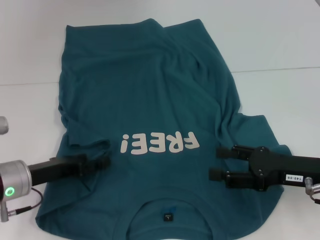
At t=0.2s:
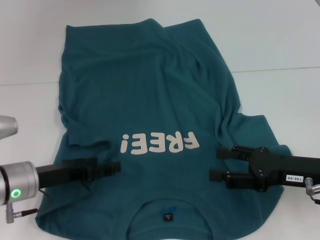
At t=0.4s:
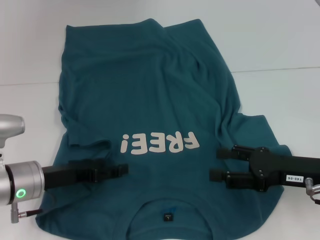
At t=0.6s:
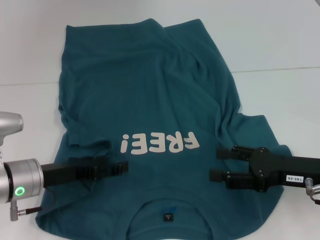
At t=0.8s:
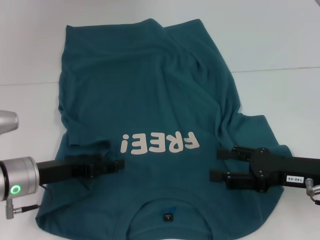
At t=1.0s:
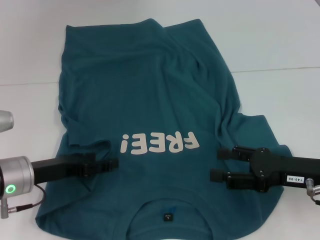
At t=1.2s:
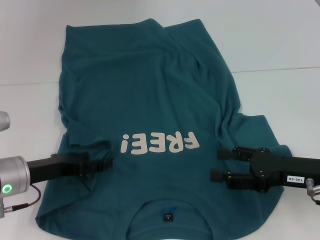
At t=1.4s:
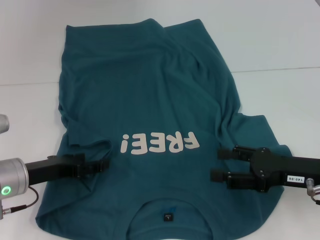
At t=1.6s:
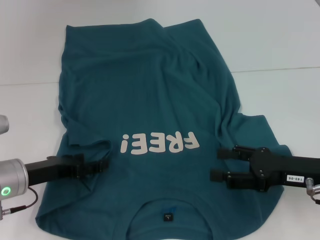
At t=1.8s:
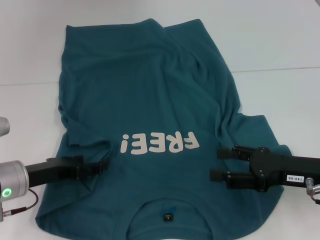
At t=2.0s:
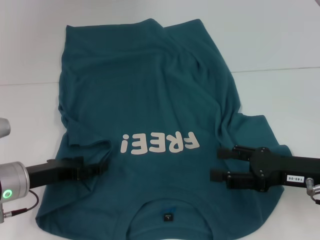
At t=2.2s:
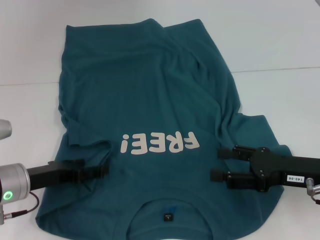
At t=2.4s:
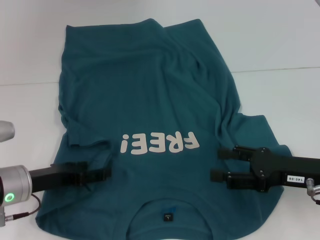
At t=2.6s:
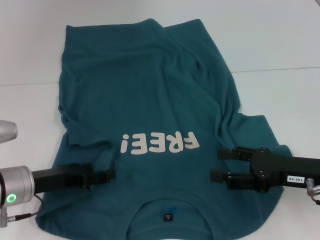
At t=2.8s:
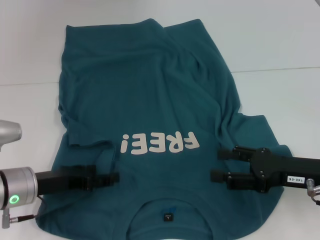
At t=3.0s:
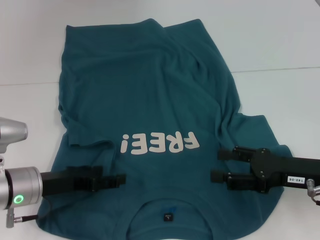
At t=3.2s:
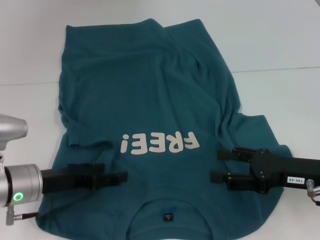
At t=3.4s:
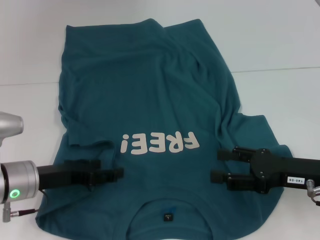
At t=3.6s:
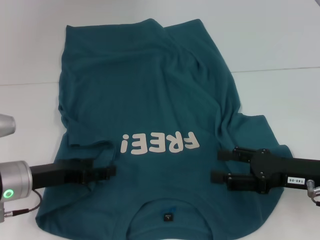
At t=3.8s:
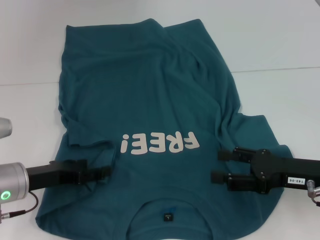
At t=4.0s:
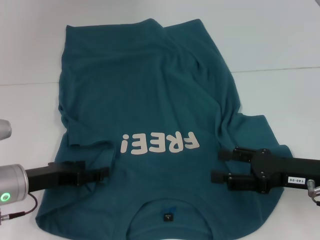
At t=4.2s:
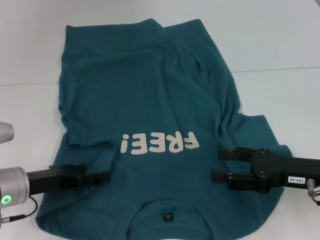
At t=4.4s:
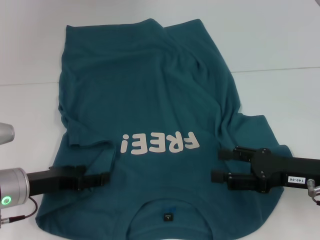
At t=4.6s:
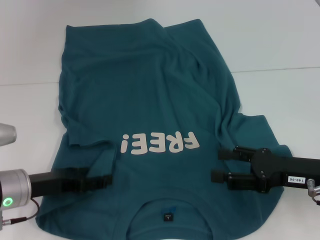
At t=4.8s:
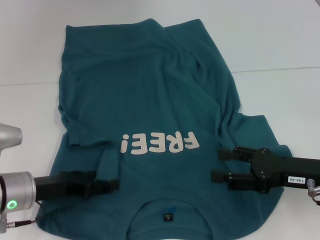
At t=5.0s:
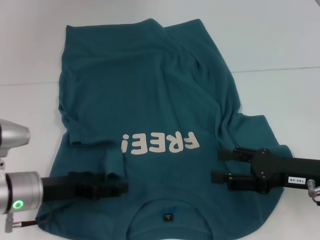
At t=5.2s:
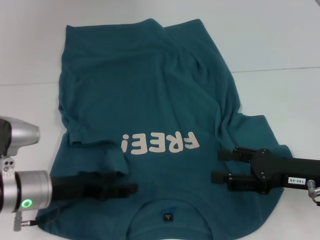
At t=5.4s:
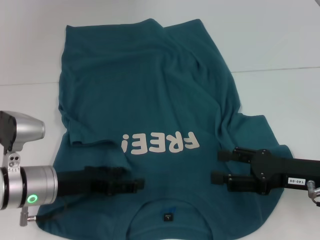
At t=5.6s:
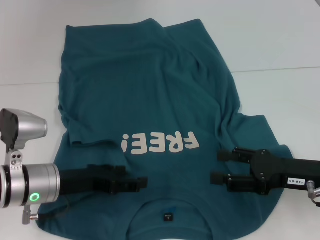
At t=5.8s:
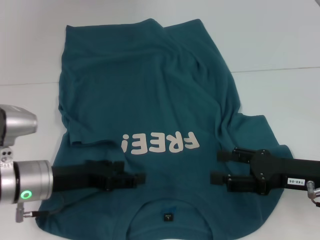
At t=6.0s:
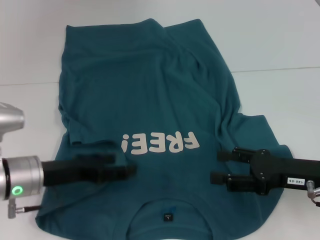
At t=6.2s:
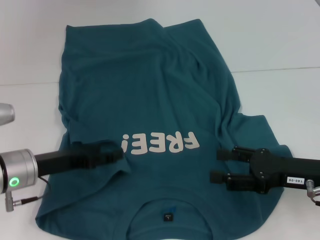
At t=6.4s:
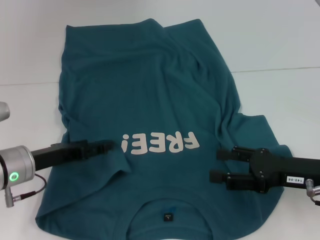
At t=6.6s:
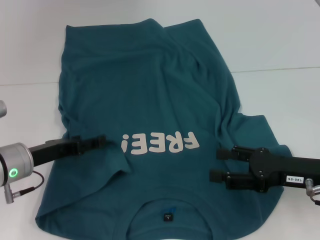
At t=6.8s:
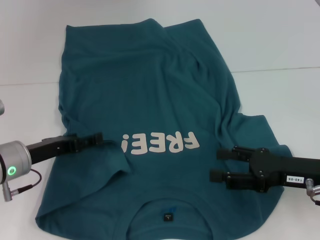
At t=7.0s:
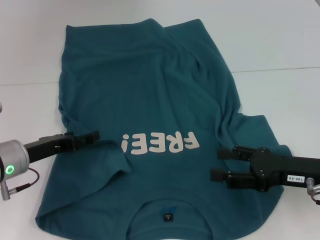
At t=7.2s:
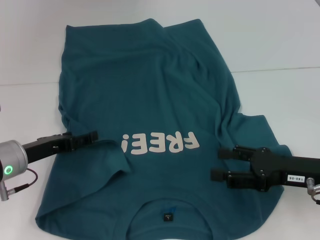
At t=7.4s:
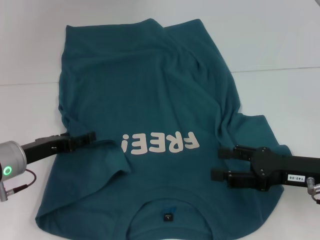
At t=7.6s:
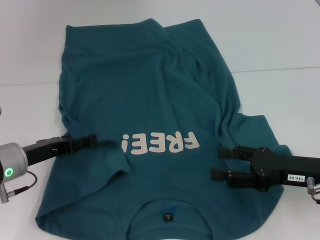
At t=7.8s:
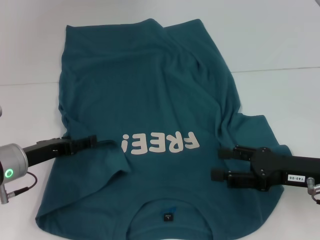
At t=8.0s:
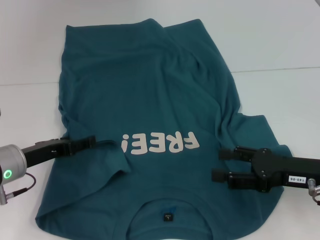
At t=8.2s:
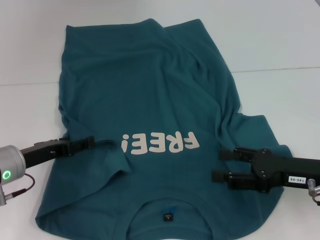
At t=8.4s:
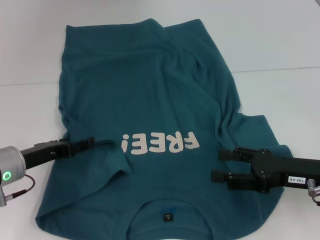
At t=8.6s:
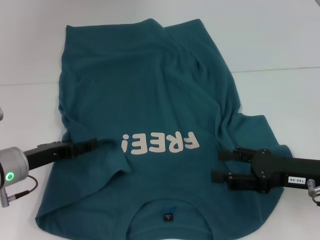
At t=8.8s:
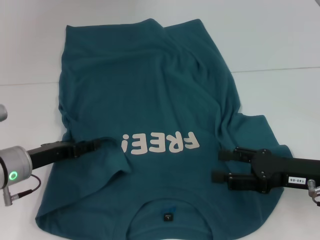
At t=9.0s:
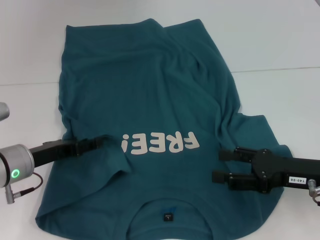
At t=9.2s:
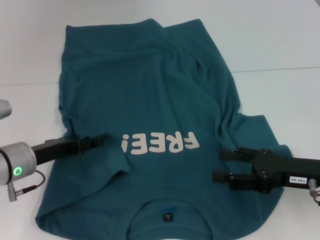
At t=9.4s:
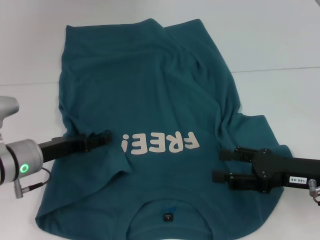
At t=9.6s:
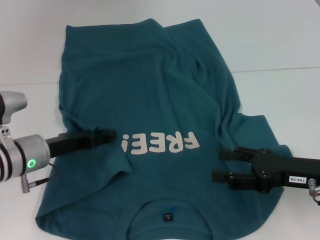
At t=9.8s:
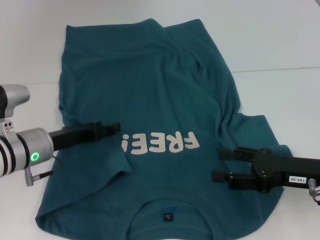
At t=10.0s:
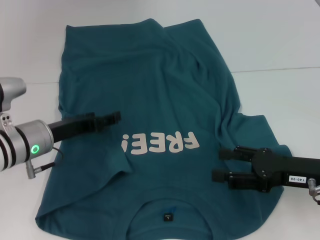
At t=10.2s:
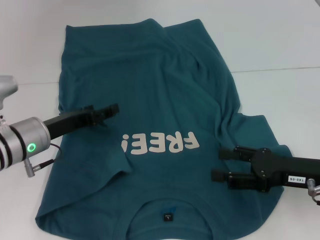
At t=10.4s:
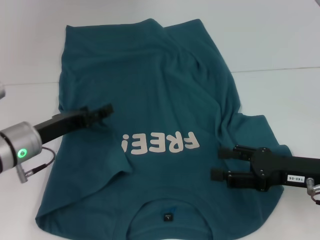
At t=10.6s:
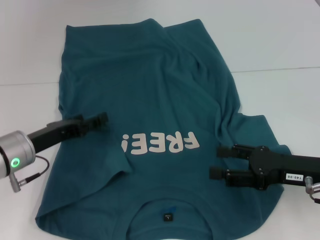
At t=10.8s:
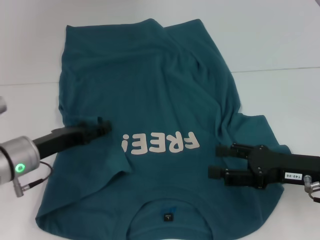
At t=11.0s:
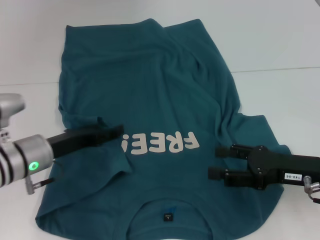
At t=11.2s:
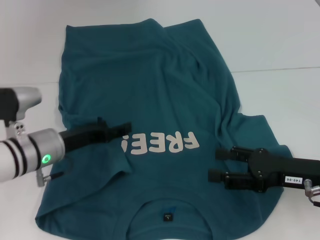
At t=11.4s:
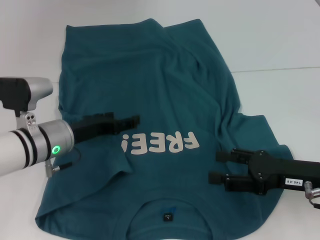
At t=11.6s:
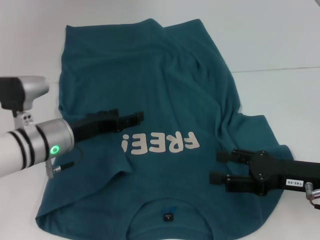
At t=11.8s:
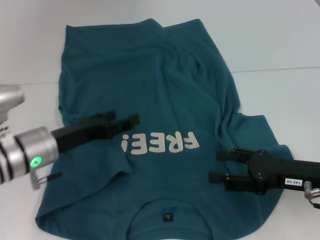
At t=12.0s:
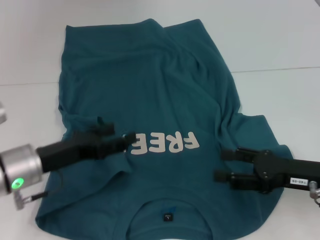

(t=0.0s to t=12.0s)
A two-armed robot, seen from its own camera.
Step, t=0.0s - t=12.0s: Fold the bottom left sleeve with your left hand.
t=0.0s - t=6.0s: The grippers move only a little.
t=7.6s - t=9.0s: Both grippers stay put.
t=9.0s - t=10.4s: The grippers make only small movements.
t=10.4s - t=12.0s: The grippers move only a little.

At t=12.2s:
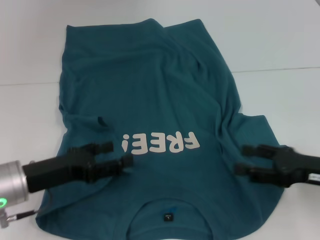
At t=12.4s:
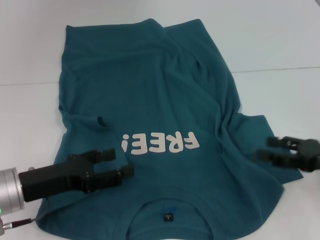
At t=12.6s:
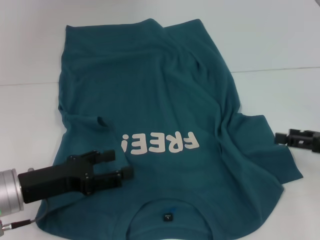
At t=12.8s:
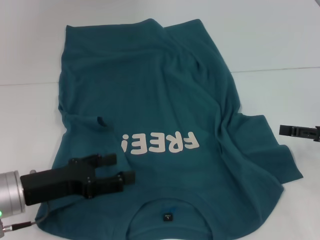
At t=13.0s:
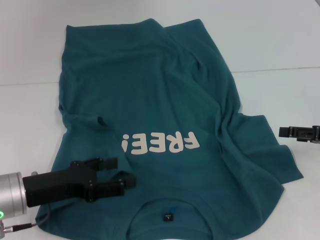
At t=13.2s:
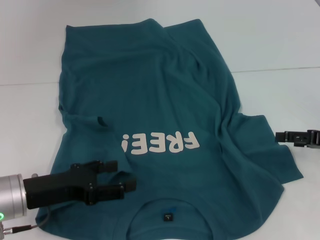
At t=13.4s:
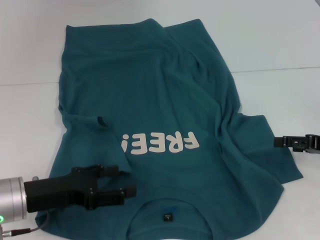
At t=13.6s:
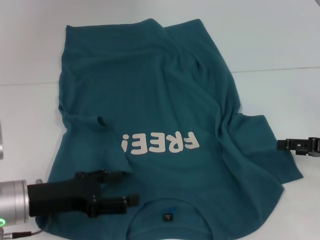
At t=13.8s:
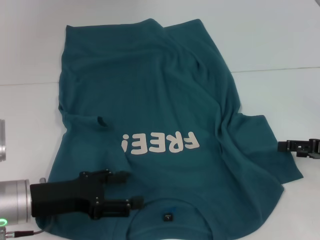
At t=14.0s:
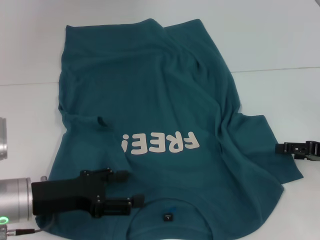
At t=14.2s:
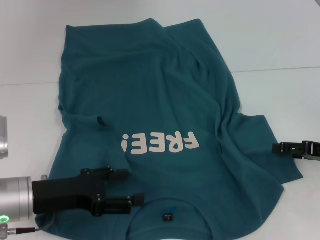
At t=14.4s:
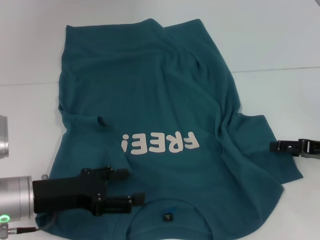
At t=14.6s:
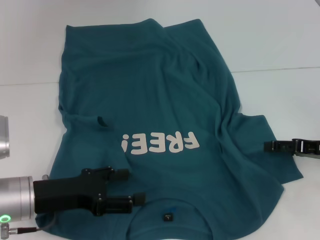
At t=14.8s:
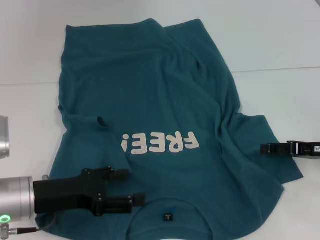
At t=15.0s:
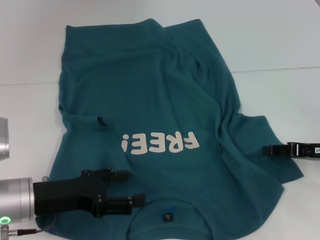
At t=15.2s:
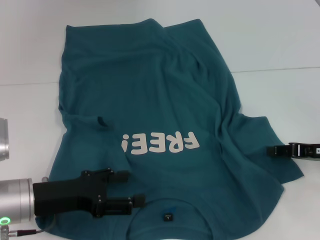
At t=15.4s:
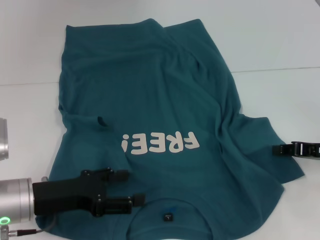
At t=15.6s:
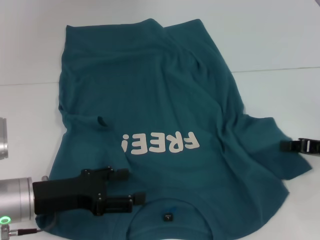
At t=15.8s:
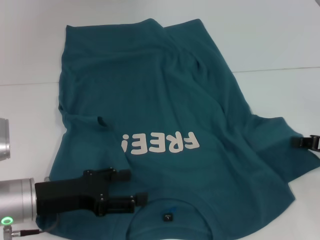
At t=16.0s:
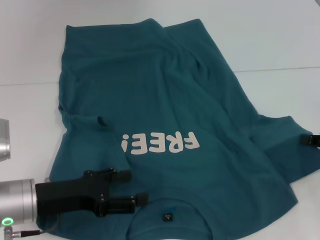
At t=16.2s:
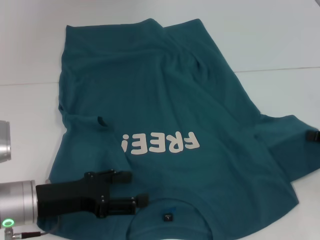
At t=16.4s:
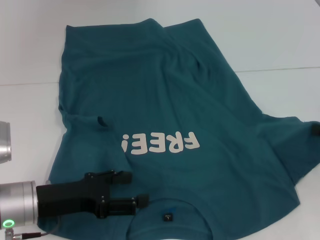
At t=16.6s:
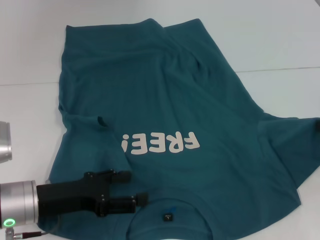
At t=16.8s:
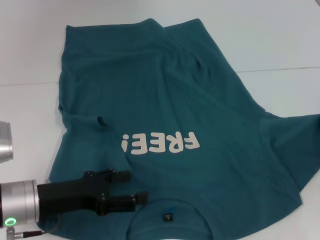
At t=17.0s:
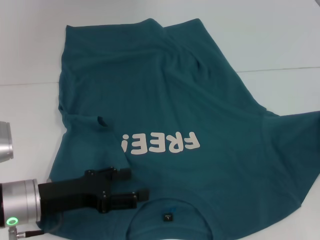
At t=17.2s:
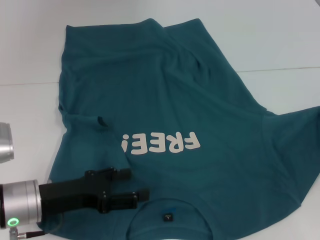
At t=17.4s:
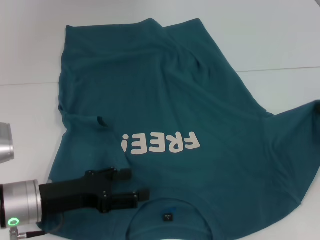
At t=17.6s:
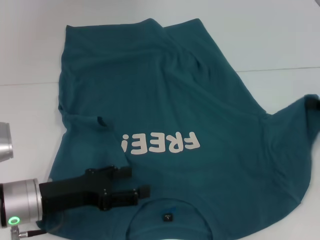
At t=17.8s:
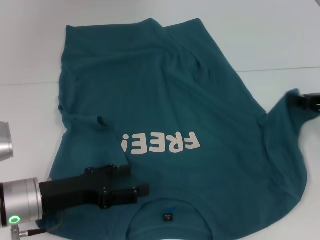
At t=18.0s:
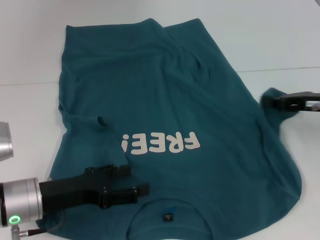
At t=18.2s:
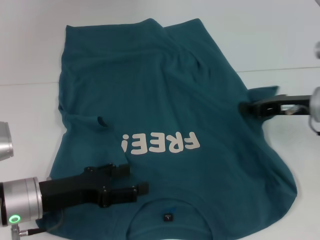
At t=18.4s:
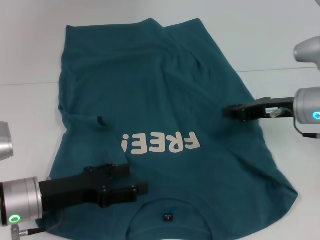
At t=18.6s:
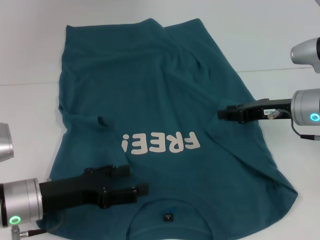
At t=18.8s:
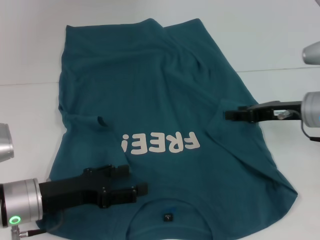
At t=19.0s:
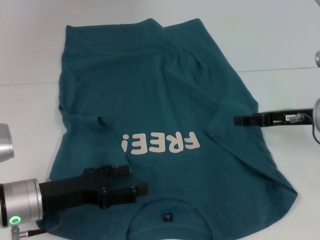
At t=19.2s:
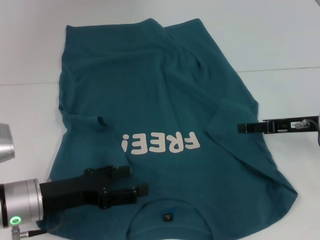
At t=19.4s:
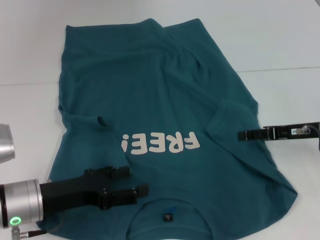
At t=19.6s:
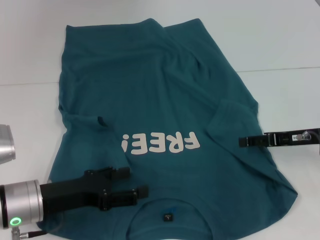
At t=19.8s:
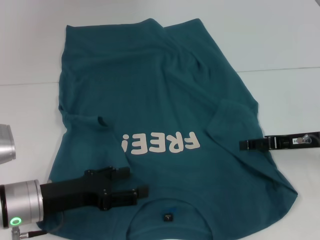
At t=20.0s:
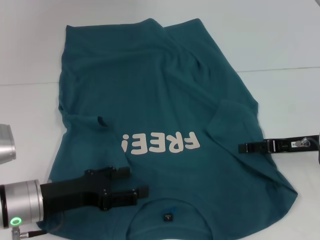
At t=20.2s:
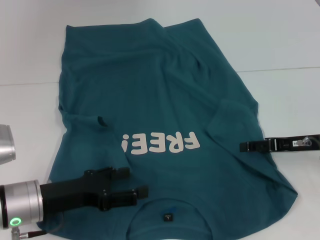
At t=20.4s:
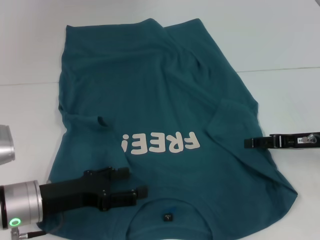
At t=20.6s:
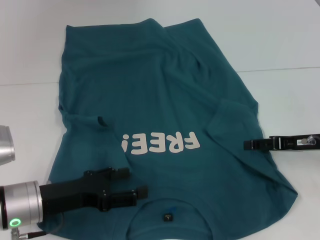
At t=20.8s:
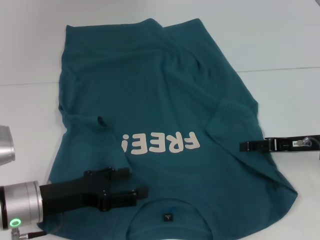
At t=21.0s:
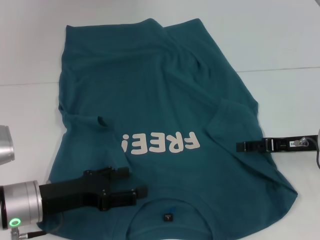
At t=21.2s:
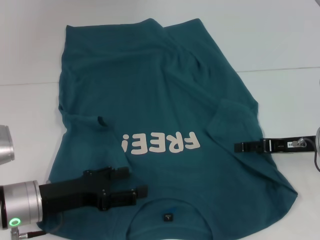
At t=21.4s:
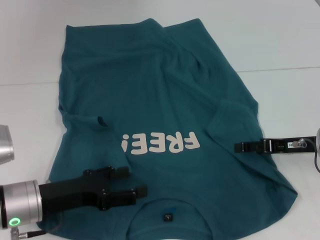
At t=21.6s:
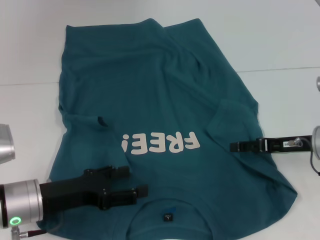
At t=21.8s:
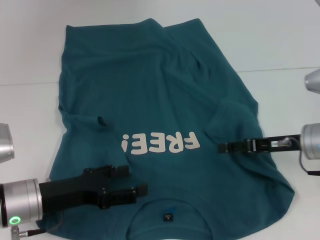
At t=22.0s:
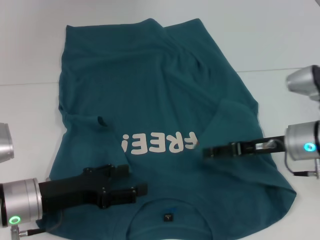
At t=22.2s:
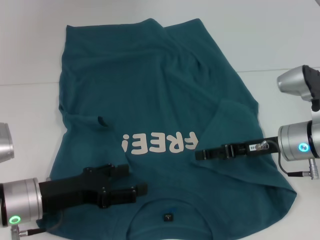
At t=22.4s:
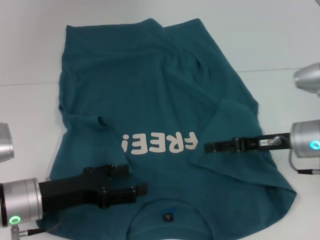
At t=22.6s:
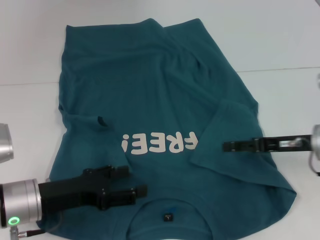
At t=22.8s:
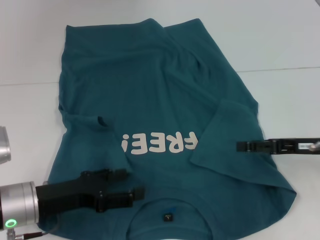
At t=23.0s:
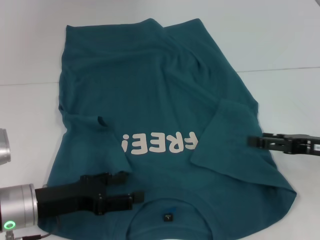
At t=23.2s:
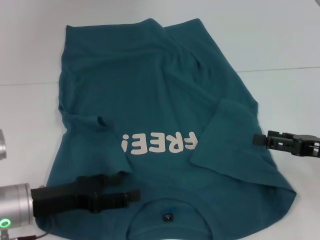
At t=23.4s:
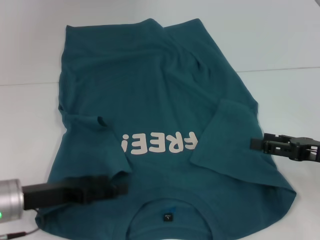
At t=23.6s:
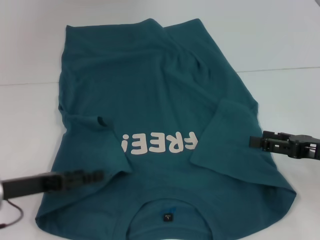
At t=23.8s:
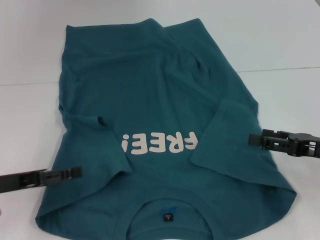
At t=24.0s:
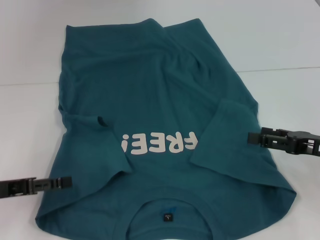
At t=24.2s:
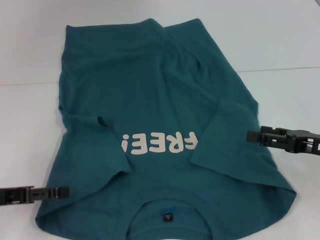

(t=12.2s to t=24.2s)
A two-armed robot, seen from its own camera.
Step, t=12.2s - t=22.2s: Fold the bottom right sleeve to the right.
t=12.2s - t=13.8s: The right gripper shifts approximately 5 cm to the right.
t=13.8s - t=15.2s: The grippers make only small movements.
t=15.2s - t=16.6s: The right gripper moves to the right, some 5 cm, and closes up.
t=16.6s - t=18.2s: The right gripper heads to the left and forward, covering some 15 cm.
t=18.2s - t=19.8s: The right gripper changes place by approximately 5 cm, and opens up.
t=19.8s - t=21.2s: Both grippers stay put.
t=21.2s - t=22.6s: The grippers stay close to where they were, moving slightly.
t=22.6s - t=24.2s: The left gripper moves to the left, about 10 cm, while the right gripper ends up roughly 5 cm from where it was.
